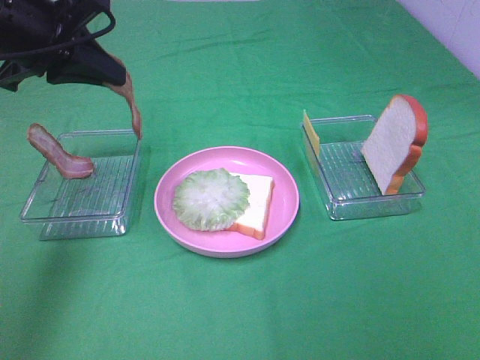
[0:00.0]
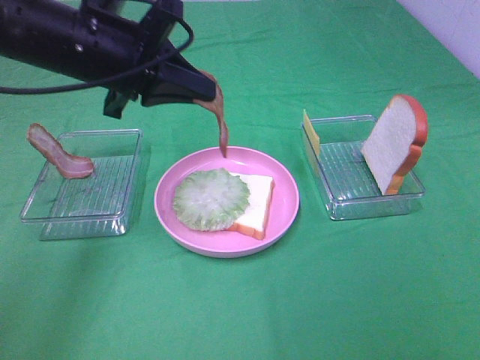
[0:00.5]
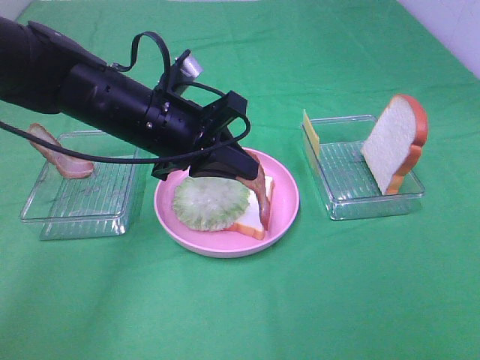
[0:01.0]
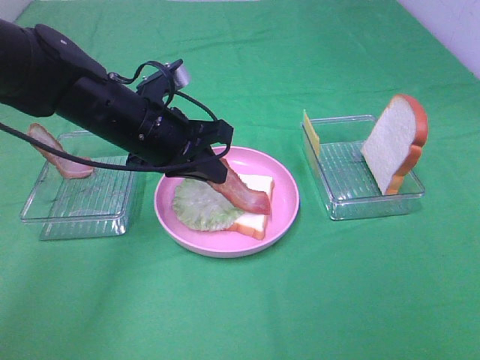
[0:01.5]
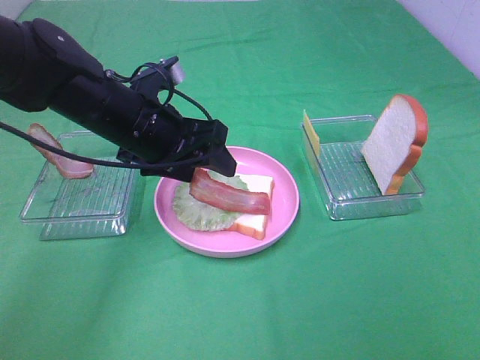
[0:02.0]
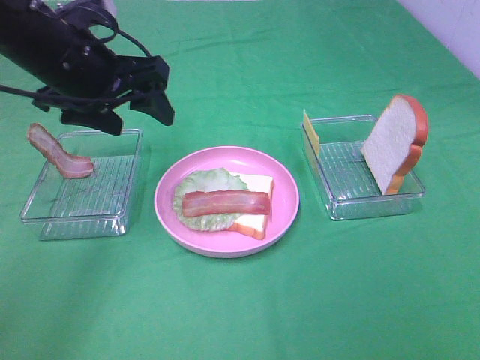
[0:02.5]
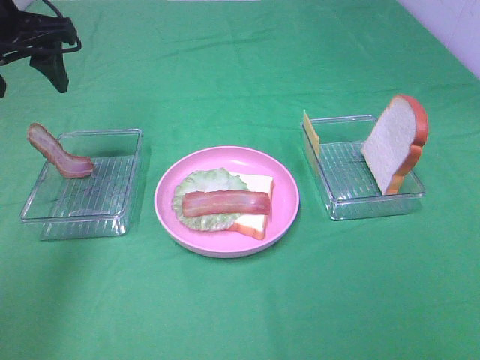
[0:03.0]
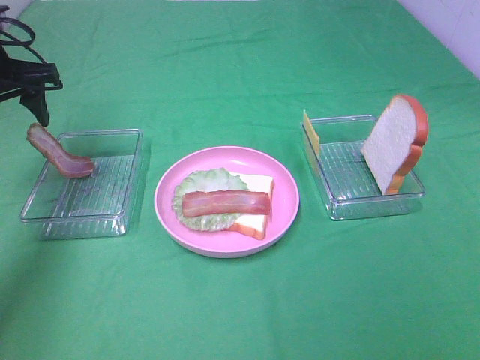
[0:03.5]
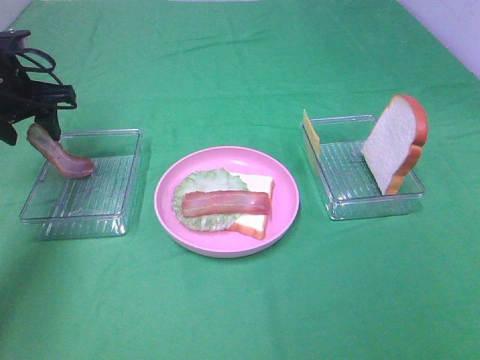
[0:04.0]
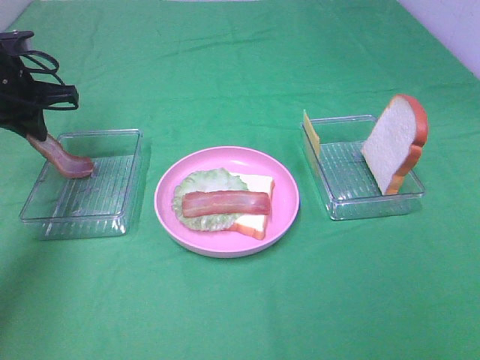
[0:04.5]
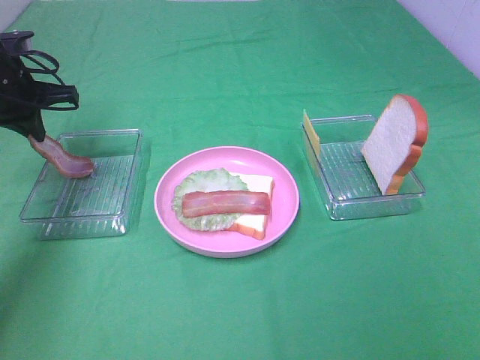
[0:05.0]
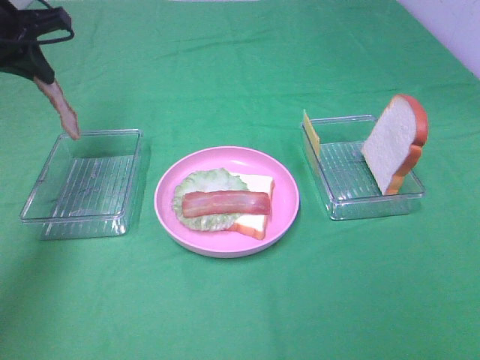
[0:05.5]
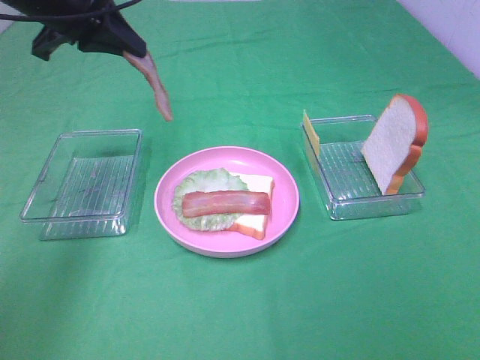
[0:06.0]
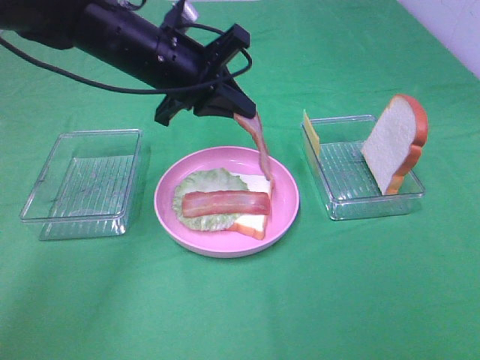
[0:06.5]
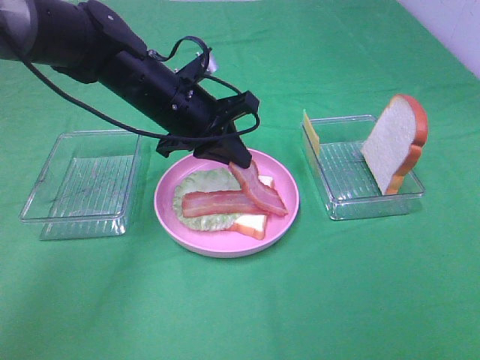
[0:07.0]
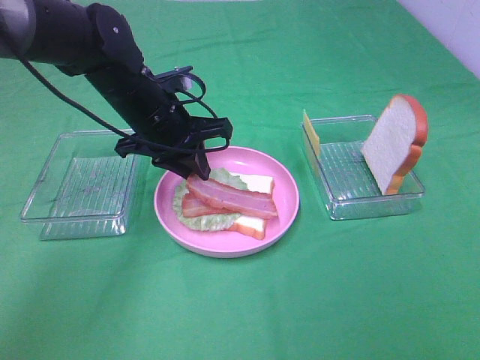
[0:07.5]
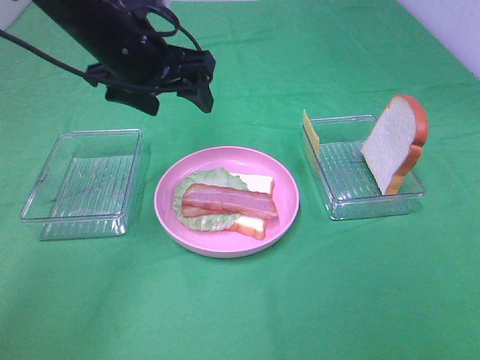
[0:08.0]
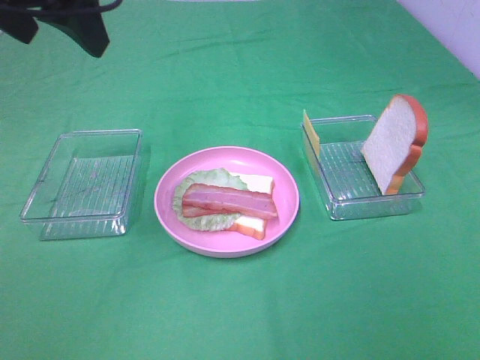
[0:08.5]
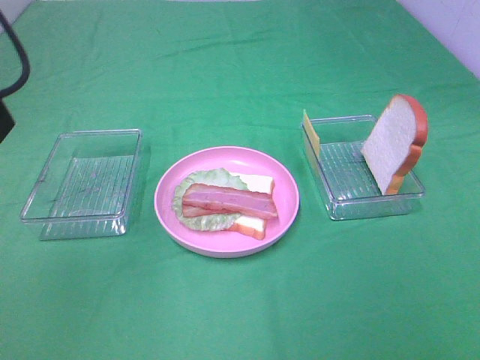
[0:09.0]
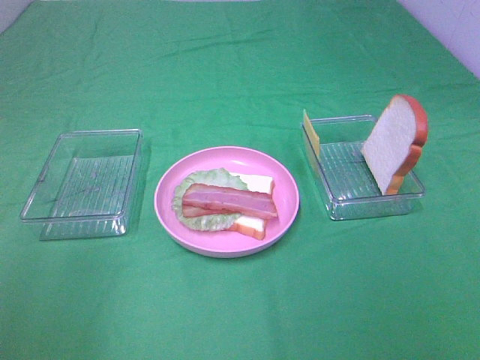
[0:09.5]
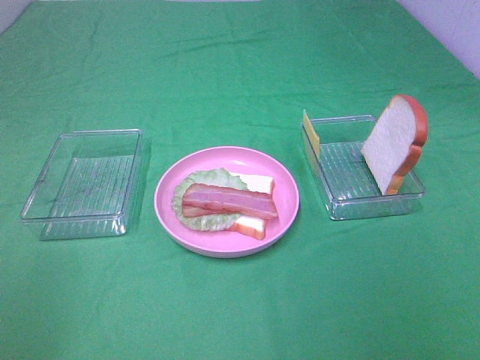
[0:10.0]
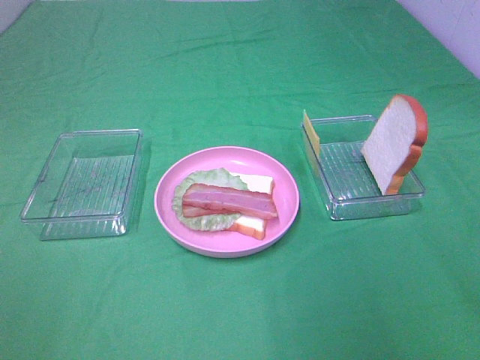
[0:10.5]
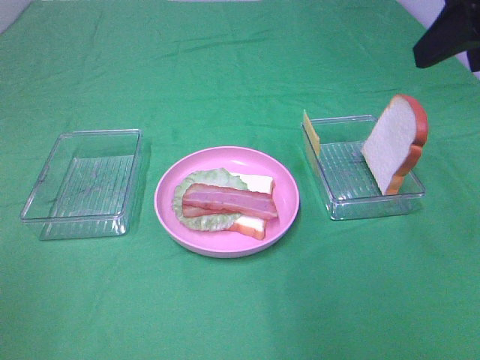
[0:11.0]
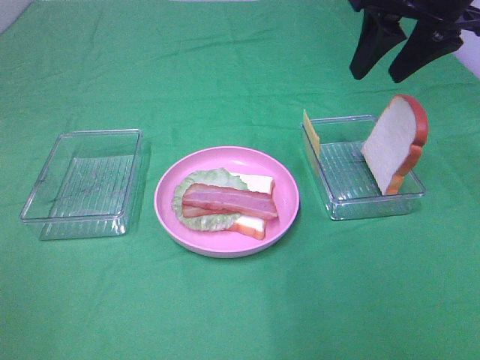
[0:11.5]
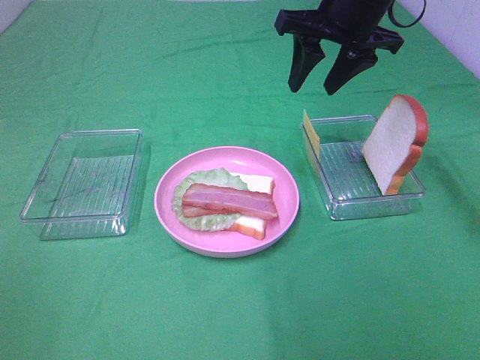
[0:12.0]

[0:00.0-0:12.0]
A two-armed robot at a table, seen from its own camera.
Task of the whole recording: Make sandwiches.
Step, 0:00.0 to 0:02.0: Left hand:place bacon on lettuce slice.
Step, 0:02.5 to 0:04.5: Left hand:grab the bacon.
Step, 0:05.0 to 0:07.5: Left hand:place bacon on bacon.
0:00.0 to 0:02.0: The left gripper is displaced downward and to the right by some 15 cm, and opens up.
0:02.0 to 0:04.0: The left gripper moves to the left and forward, some 20 cm.
0:04.0 to 0:06.0: The left gripper shifts about 15 cm upward and to the right, and closes up.
0:06.0 to 0:08.0: The left gripper travels to the right by about 5 cm, moves roughly 15 cm downward and comes back, and opens its fingers.
0:08.0 to 0:10.0: The left gripper moves backward and to the left, roughly 40 cm.
0:10.0 to 0:12.0: The right gripper moves forward and to the left, roughly 40 cm.

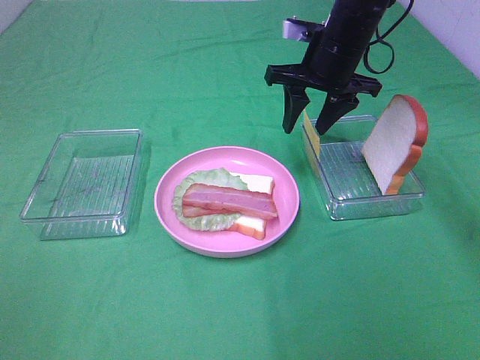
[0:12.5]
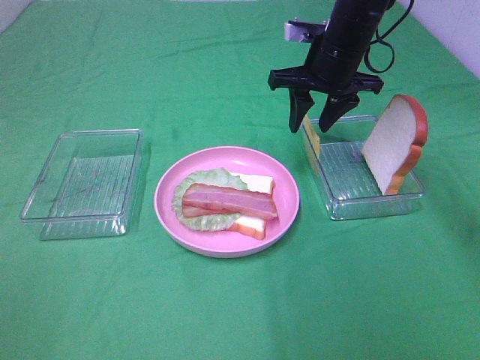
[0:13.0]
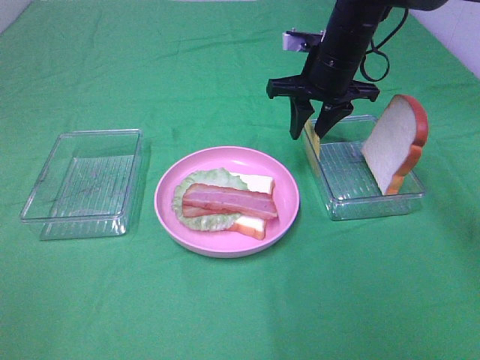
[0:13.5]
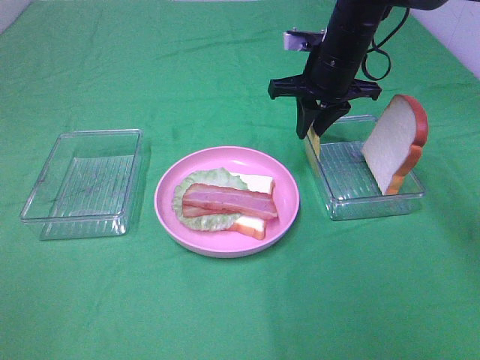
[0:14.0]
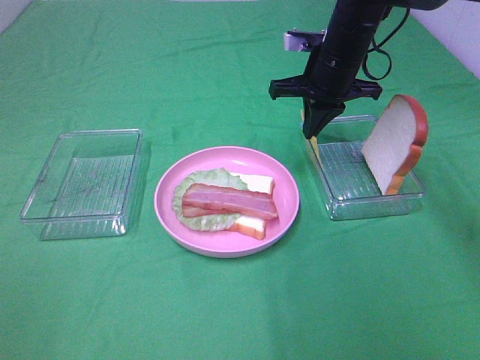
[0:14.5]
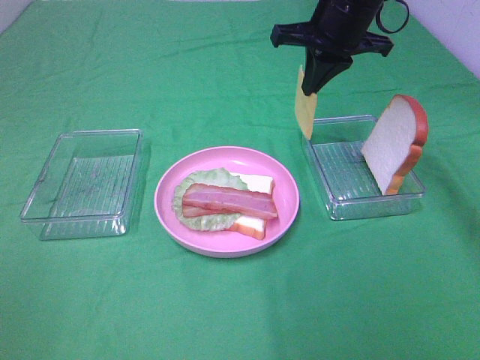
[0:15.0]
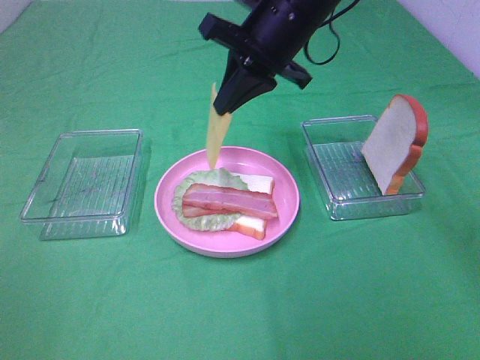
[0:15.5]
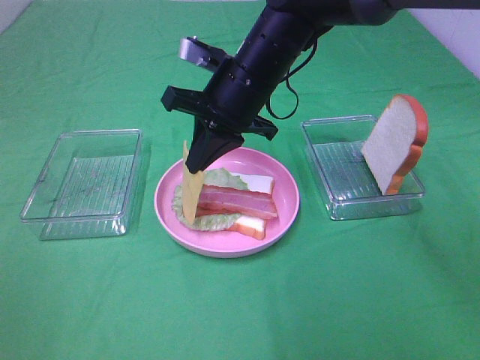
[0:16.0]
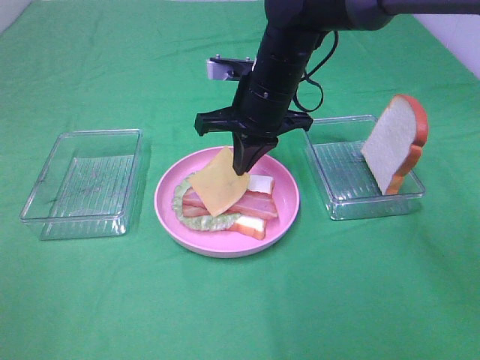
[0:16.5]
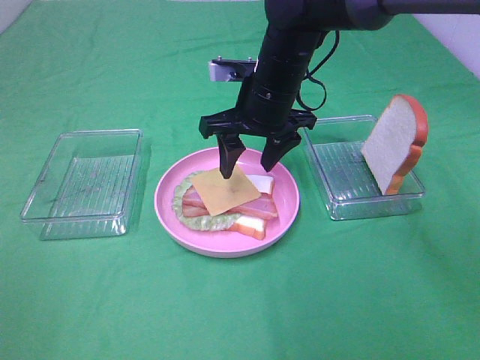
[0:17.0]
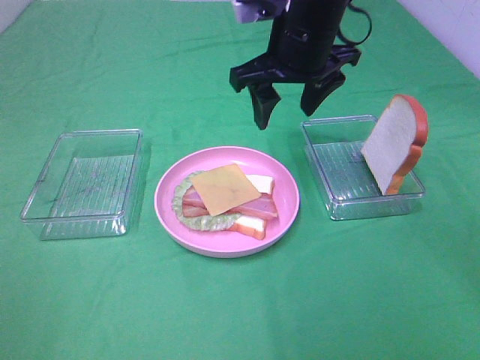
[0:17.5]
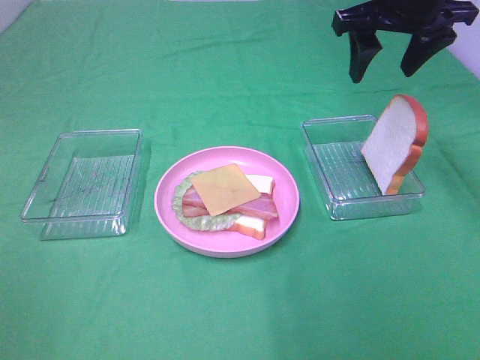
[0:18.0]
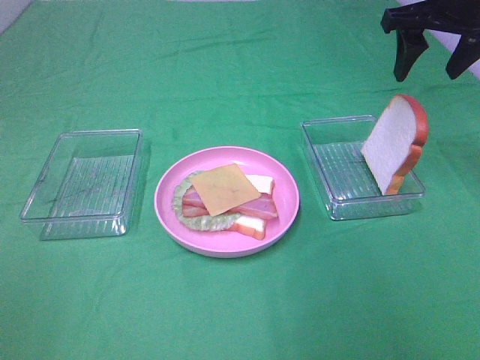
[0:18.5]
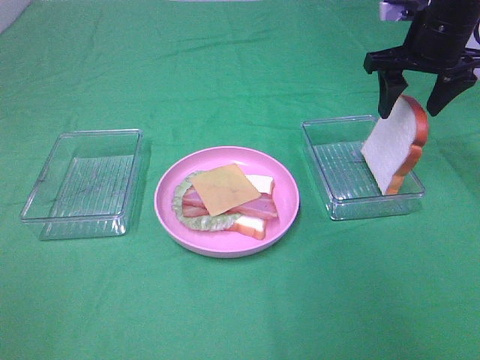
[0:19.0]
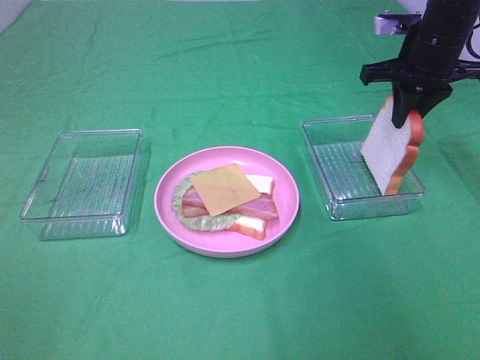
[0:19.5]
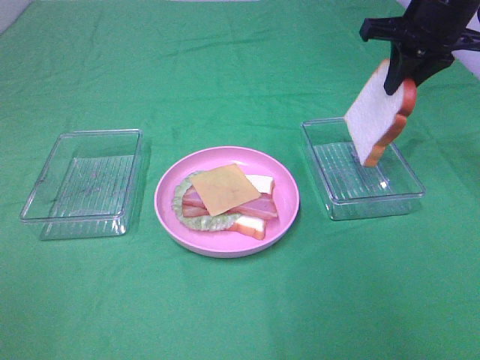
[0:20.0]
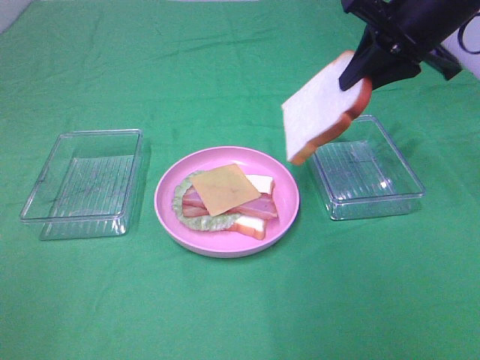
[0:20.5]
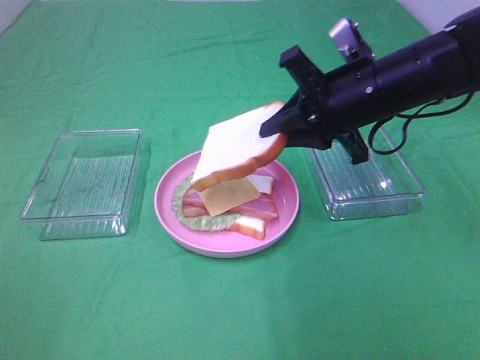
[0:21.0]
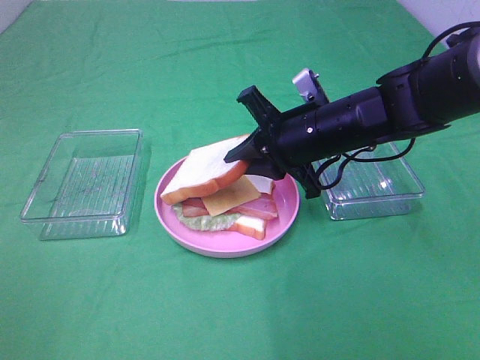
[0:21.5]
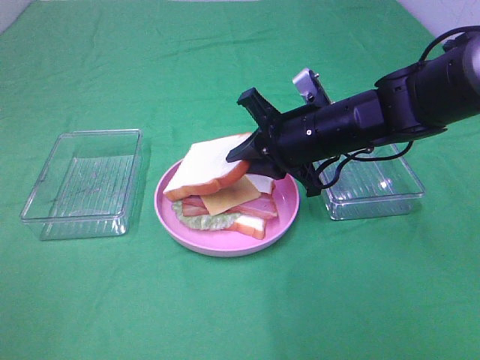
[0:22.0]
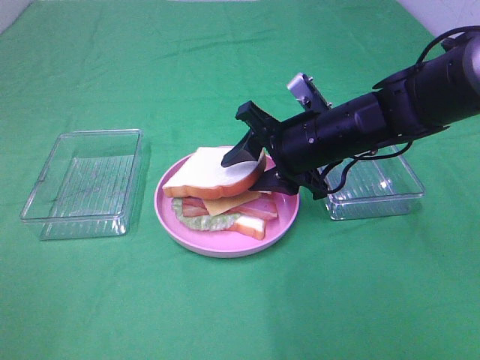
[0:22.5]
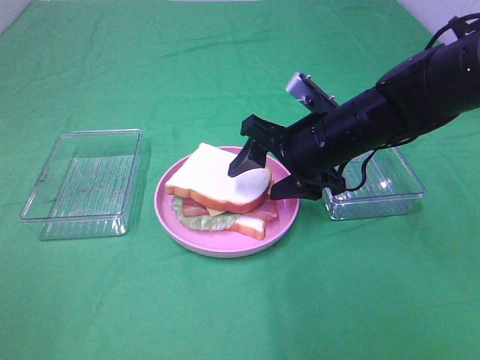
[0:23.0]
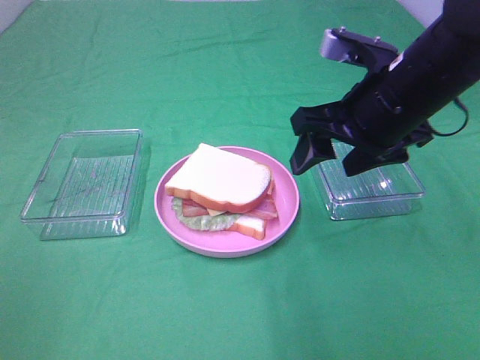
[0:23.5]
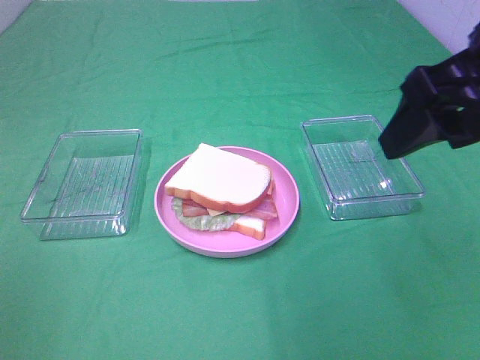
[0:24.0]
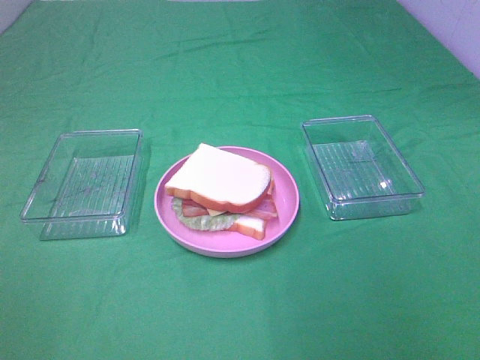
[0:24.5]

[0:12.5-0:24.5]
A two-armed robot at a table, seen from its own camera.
Task of the whole recording: Make sandwiches.
Step, 0:14.5 to 0:17.0: Right hand:place the cheese slice on top of the bacon.
Step, 0:17.5 to 0:19.5: Right hand:grab the bread slice.
Step, 0:20.0 to 0:23.0: Right hand:place the bread slice on the cheese slice.
0:12.5 to 0:14.5: The right gripper closes.
0:14.5 to 0:16.5: The right gripper moves to the left and backward, roughly 10 cm.
0:16.5 to 0:18.5: The right gripper goes some 25 cm to the right and upward, and opens.
0:18.5 to 0:20.5: The right gripper changes place by roughly 5 cm, and closes.
0:20.5 to 0:22.5: The right gripper moves downward and to the left, some 15 cm, and opens up.
0:22.5 to 0:24.5: The right gripper shifts approximately 35 cm backward, upward and to the right.

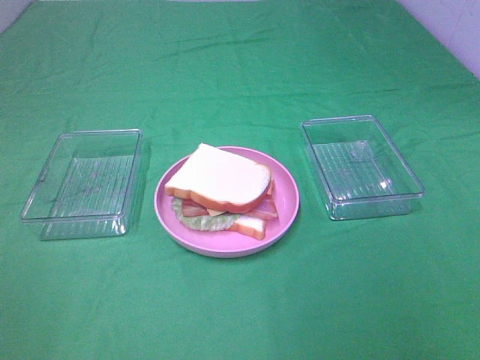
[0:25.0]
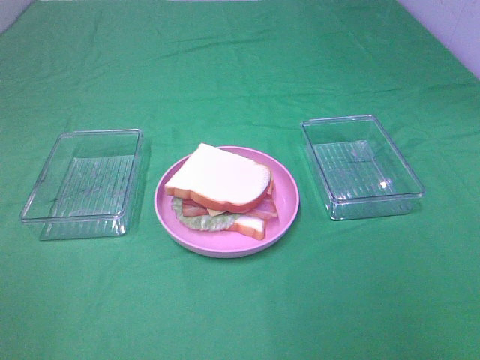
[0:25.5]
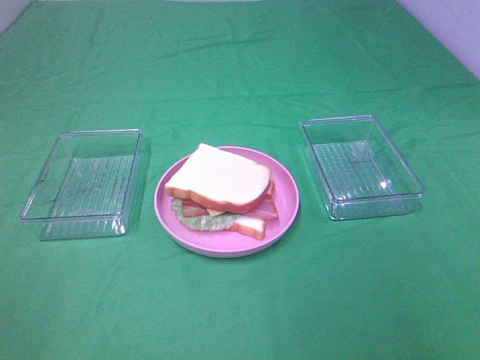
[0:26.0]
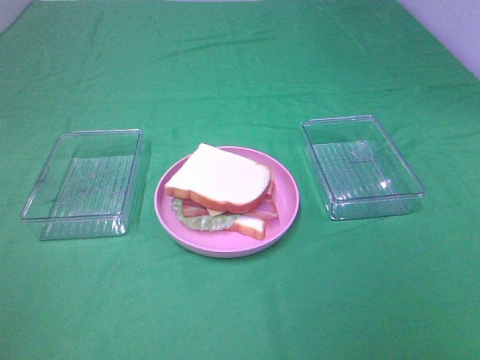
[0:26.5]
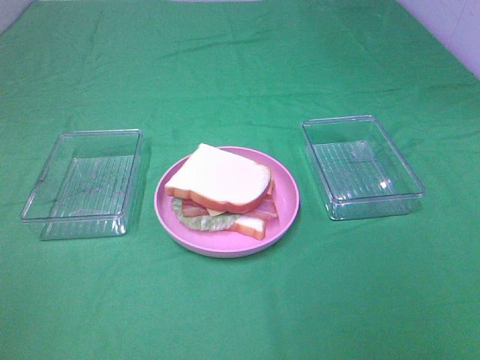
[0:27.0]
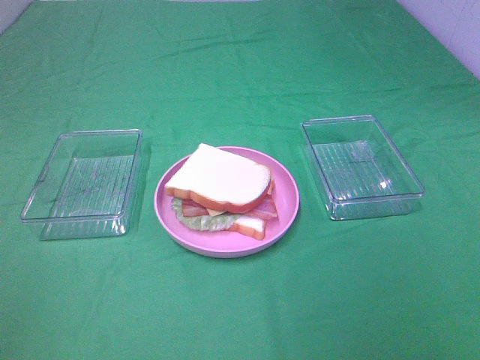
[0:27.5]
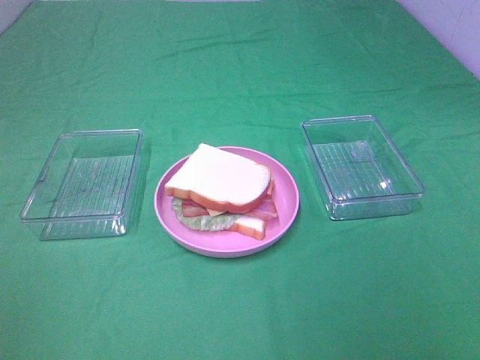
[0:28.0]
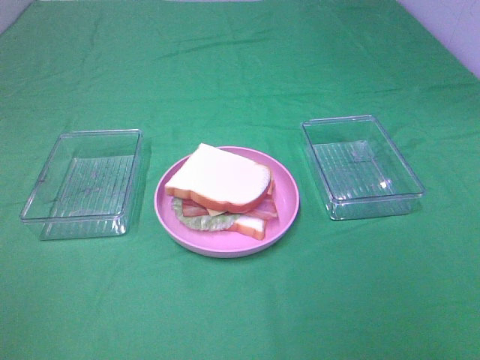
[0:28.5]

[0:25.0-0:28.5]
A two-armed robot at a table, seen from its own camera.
Task of the whole recording: Make sandwiches.
0:27.0 to 0:28.5: Both grippers stay about where they are.
